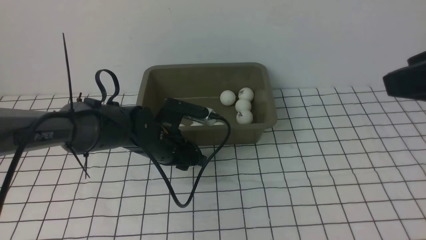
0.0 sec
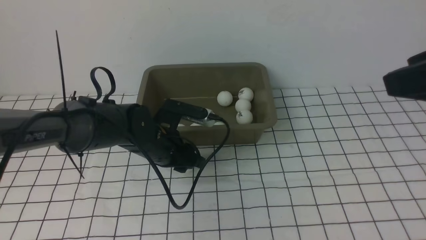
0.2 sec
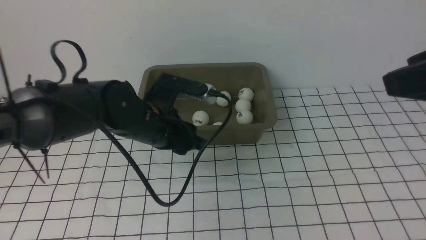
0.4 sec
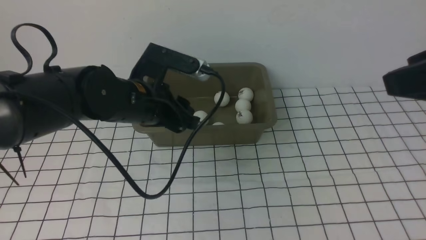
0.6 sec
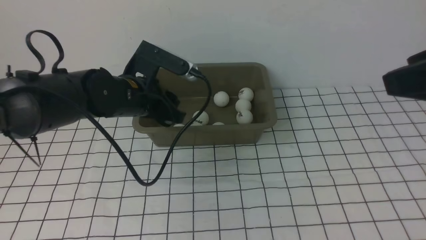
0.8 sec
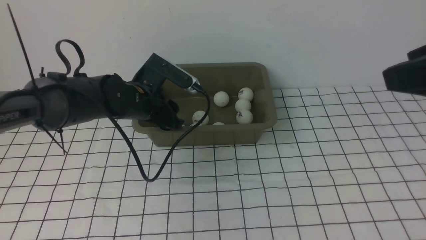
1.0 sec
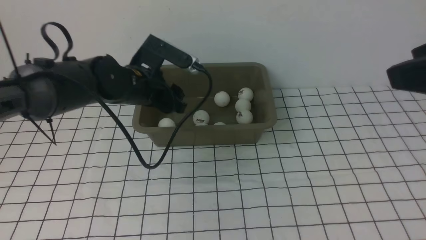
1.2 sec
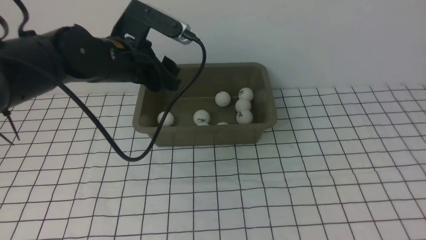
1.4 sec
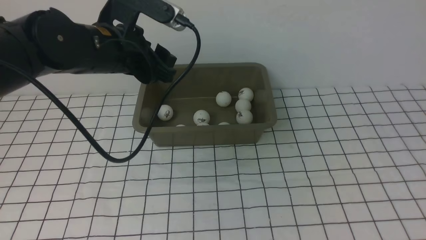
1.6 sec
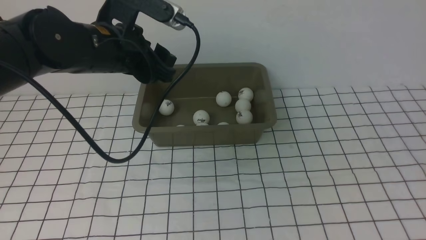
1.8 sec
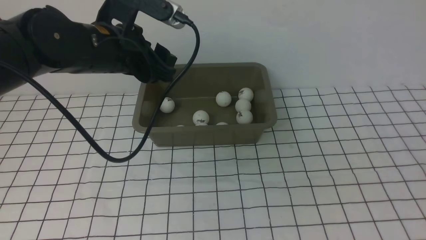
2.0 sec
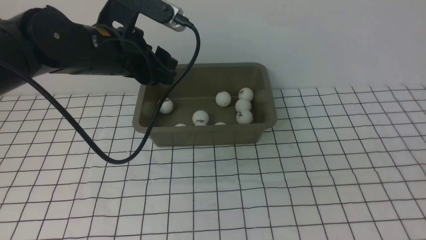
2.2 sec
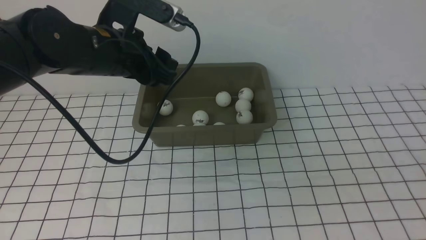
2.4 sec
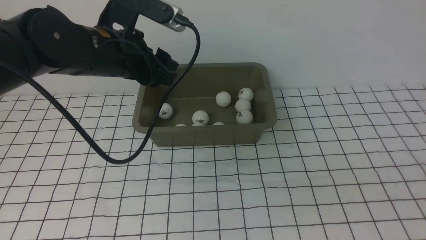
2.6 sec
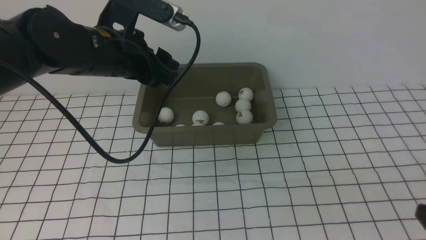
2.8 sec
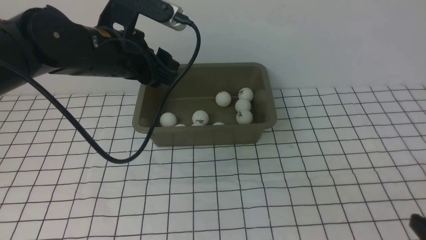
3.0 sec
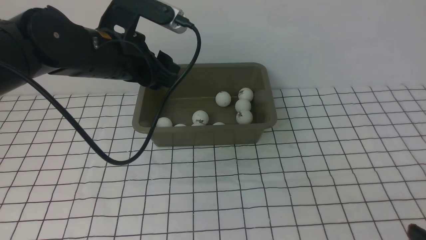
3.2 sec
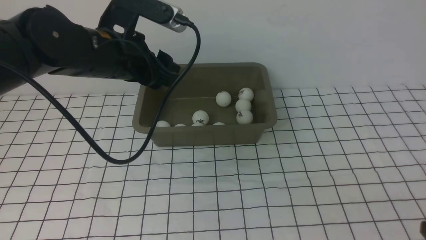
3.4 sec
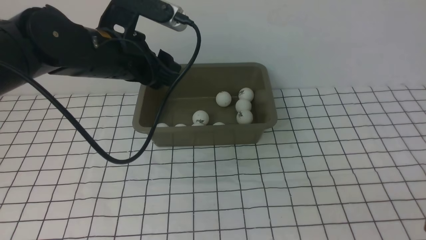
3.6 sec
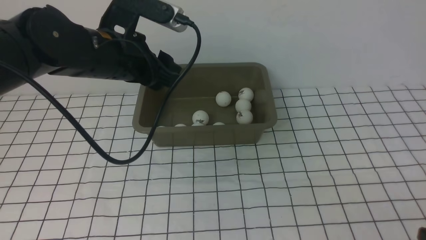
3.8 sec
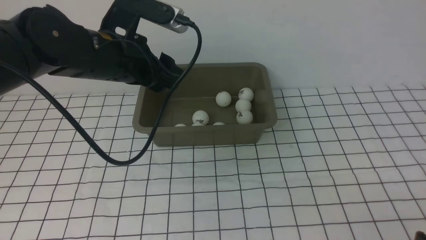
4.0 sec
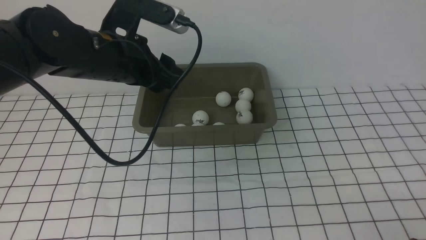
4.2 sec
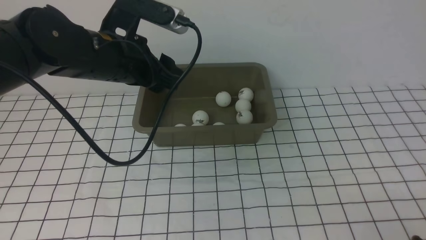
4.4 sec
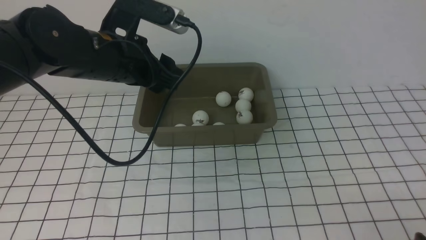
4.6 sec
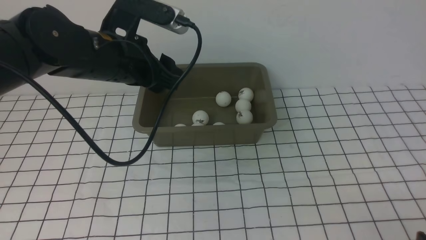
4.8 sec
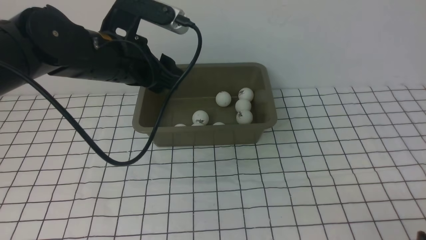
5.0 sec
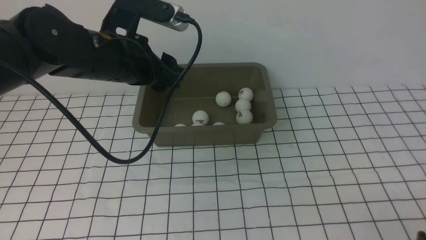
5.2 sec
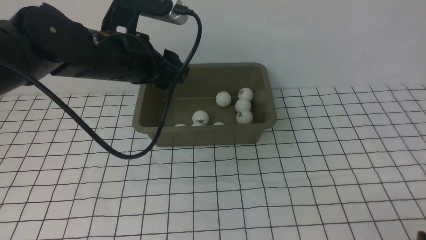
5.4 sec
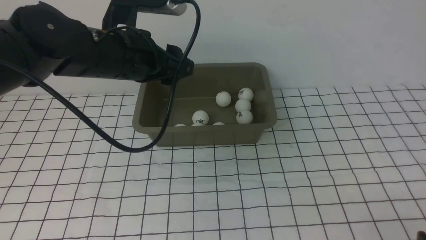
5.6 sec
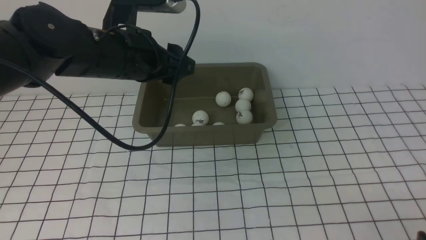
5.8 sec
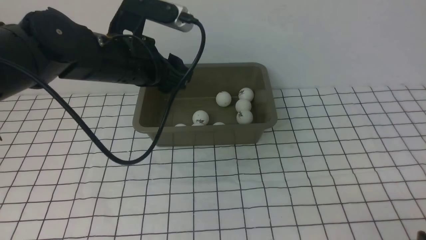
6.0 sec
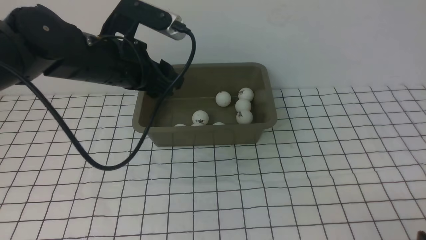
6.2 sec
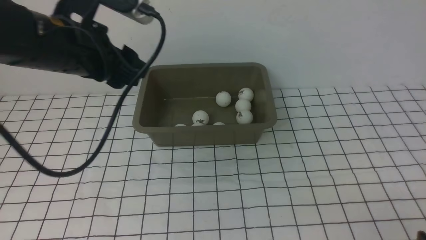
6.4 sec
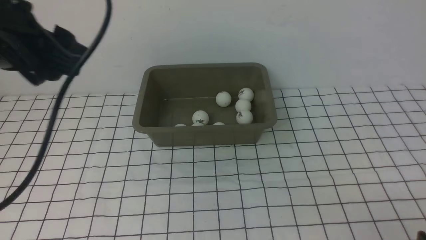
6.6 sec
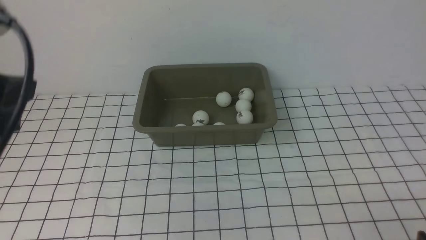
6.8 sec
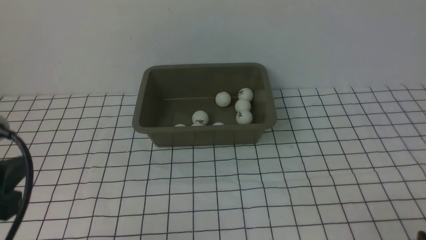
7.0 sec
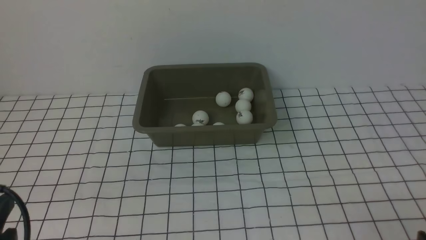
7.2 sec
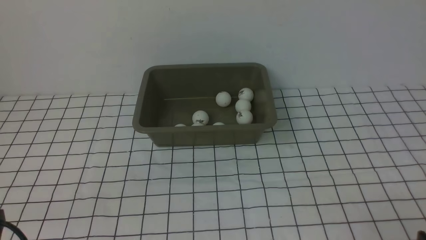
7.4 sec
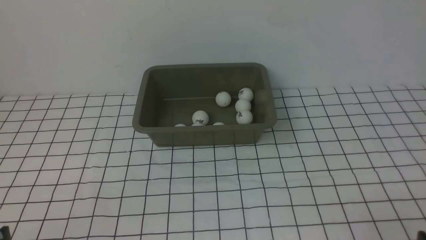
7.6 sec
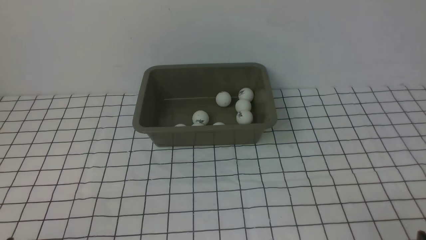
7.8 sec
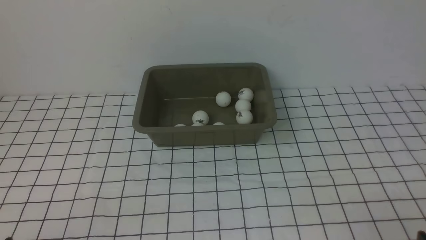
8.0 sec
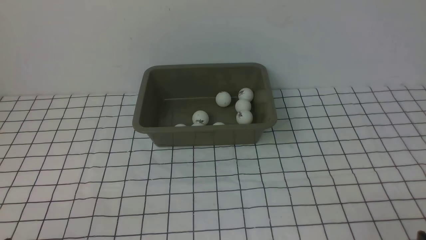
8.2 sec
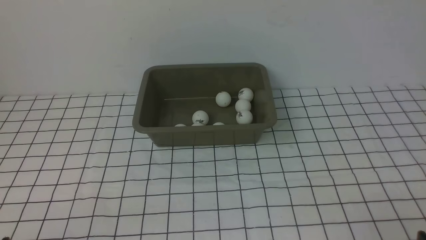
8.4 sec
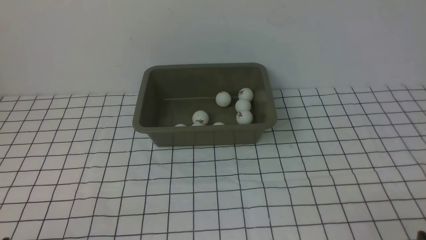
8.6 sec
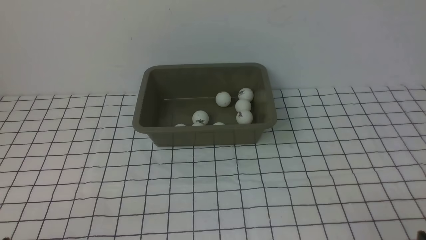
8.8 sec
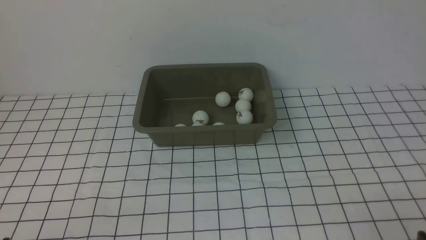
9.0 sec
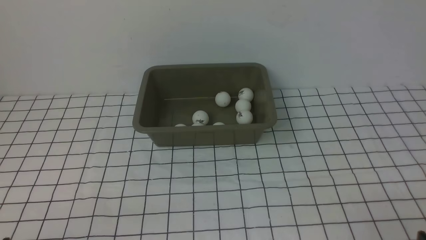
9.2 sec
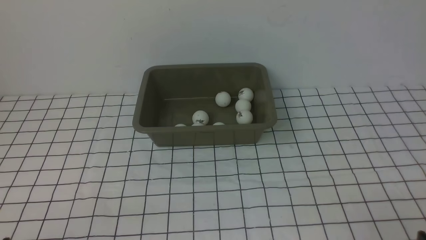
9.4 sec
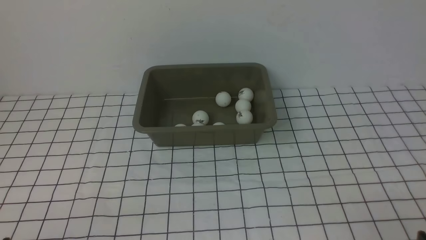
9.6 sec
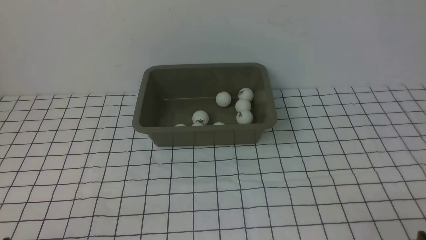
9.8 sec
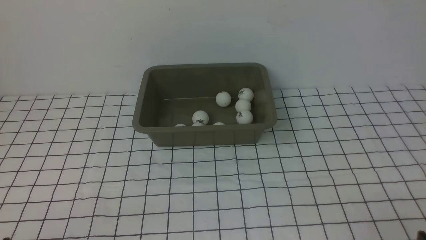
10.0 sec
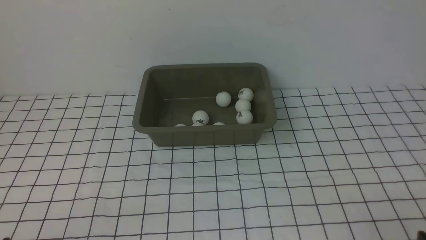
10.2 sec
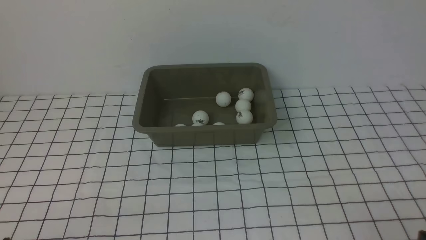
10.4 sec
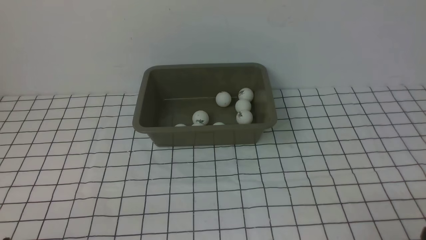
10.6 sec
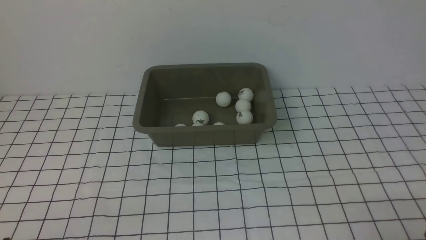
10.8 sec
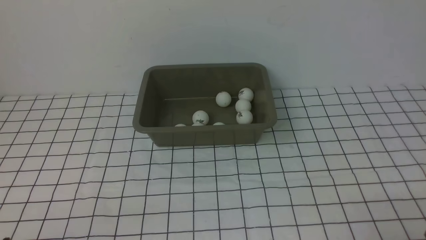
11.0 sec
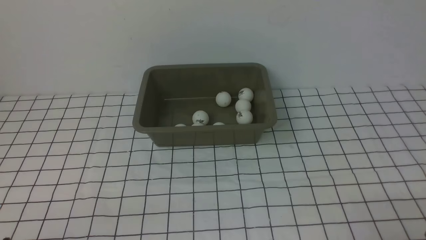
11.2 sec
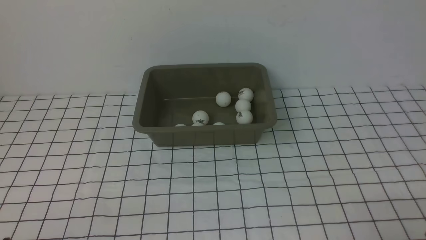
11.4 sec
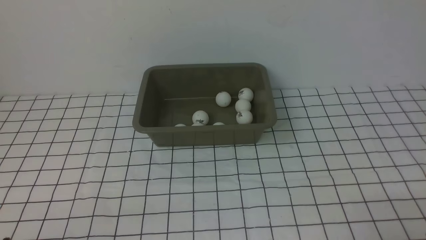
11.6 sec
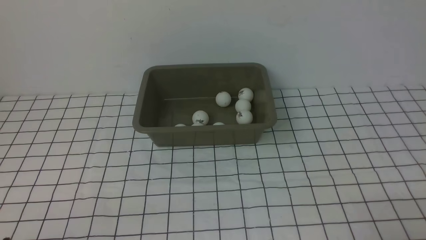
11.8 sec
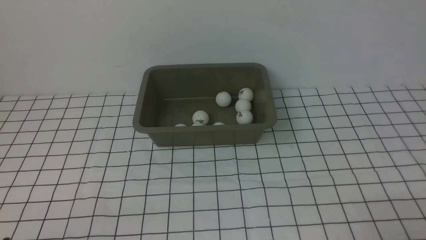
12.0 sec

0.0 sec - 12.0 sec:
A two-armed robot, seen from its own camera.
Step, 0.6 sec - 1.2 sec: use the left arm to put the table tennis ball into the box.
0.0 sec - 1.6 sec: The left gripper shifts about 15 cm upward, and opens its fingers, while the right gripper moves backward, roughly 10 cm.
1.6 sec - 3.0 sec: The right gripper shifts approximately 15 cm downward.
3.0 sec - 4.4 sec: The right gripper travels downward by about 5 cm.
4.4 sec - 6.0 sec: The grippers move only a little.
6.0 sec - 7.6 sec: The left gripper travels backward, to the left and downward by about 35 cm.
9.0 sec - 10.4 sec: Both grippers stay put.

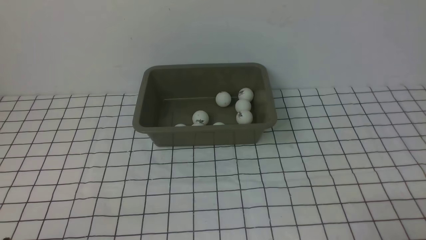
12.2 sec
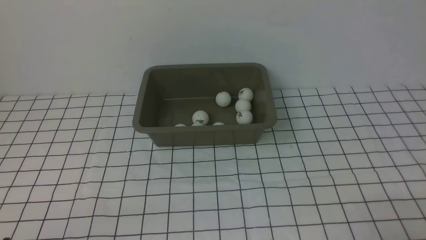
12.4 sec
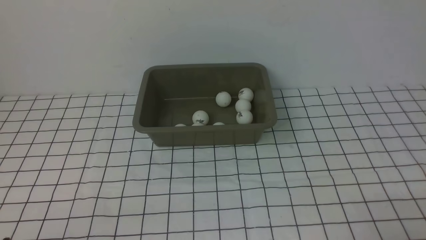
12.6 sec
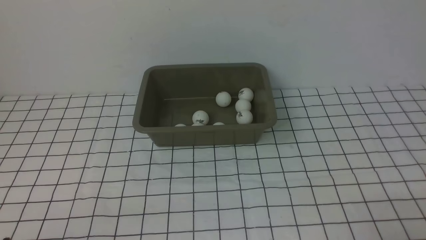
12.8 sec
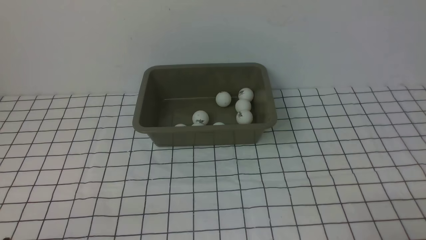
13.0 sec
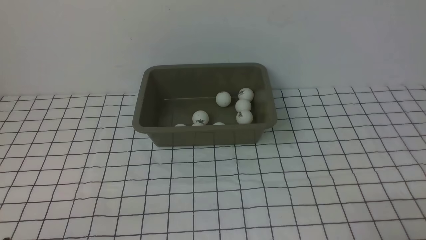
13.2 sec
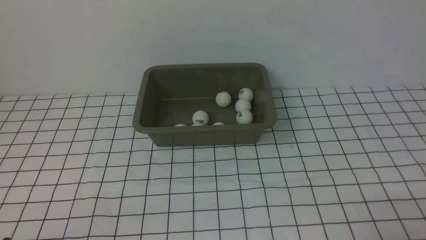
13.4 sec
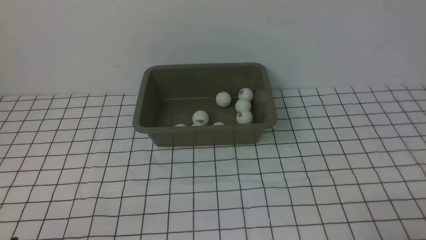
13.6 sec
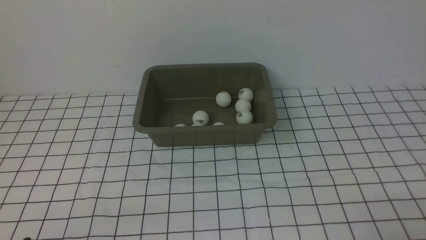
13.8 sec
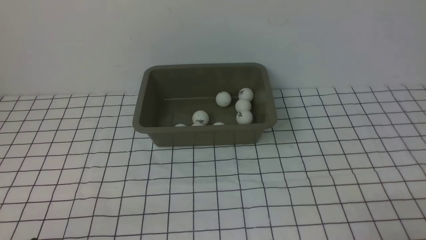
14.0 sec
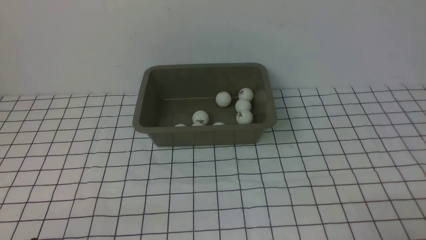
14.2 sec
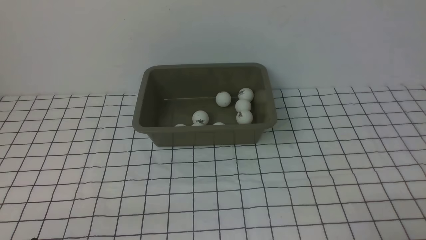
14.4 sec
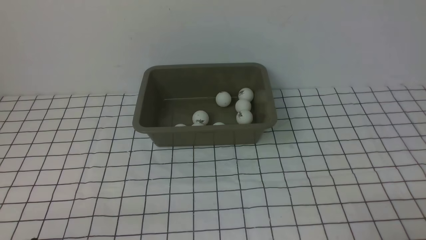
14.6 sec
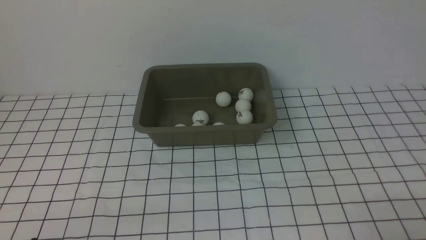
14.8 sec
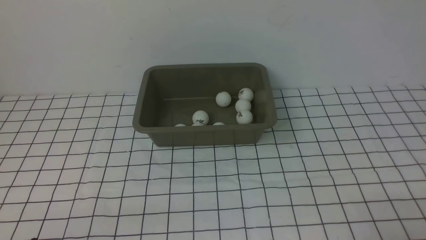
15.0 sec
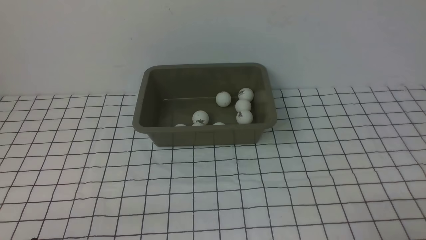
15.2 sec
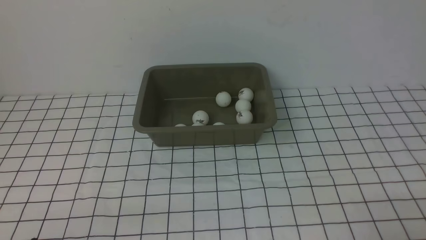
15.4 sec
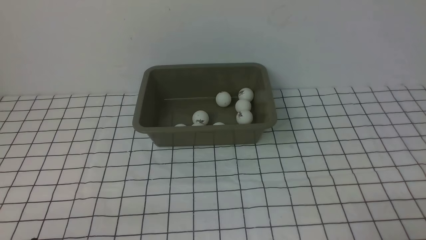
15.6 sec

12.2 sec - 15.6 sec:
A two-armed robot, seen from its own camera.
13.8 sec - 15.6 sec: The two grippers keep their place.
